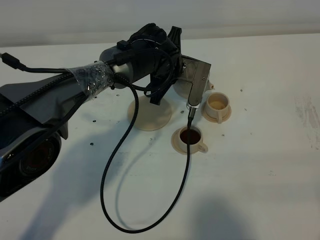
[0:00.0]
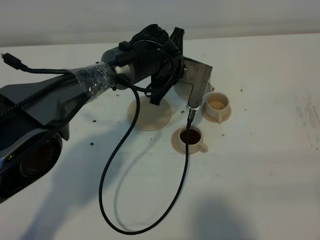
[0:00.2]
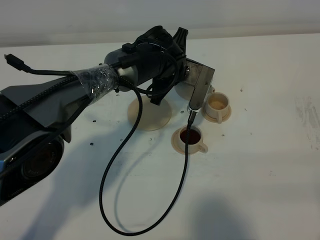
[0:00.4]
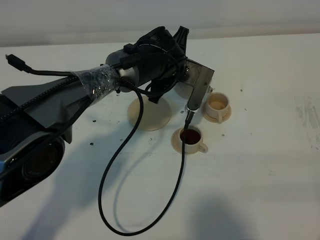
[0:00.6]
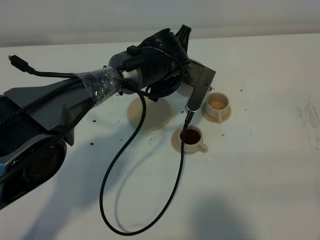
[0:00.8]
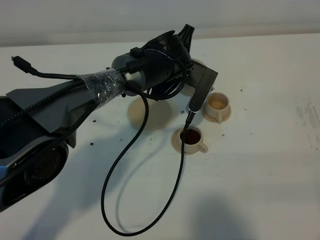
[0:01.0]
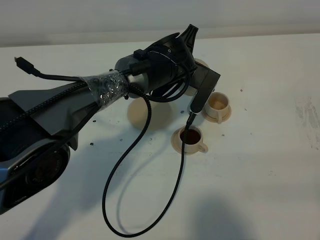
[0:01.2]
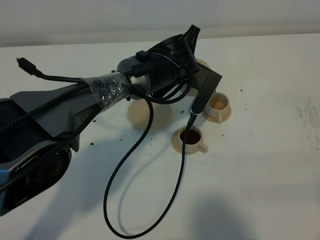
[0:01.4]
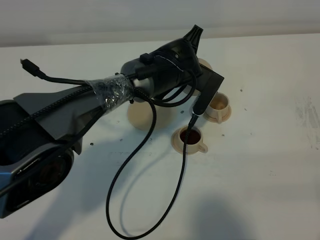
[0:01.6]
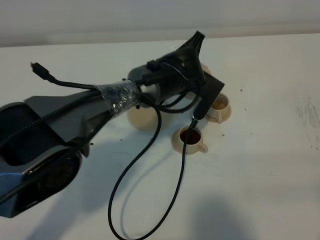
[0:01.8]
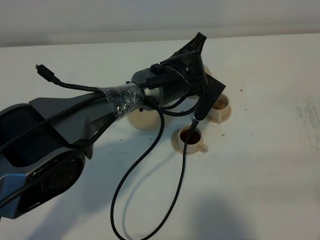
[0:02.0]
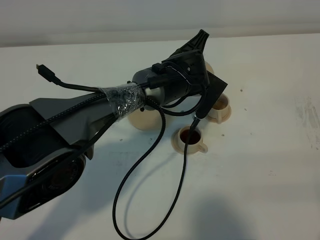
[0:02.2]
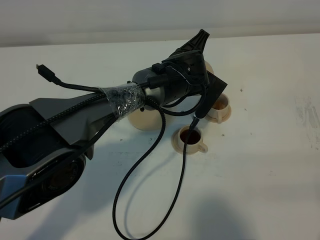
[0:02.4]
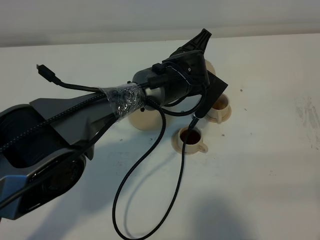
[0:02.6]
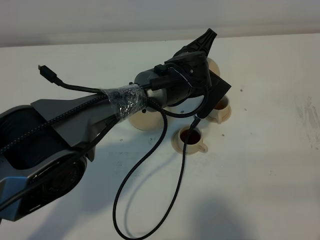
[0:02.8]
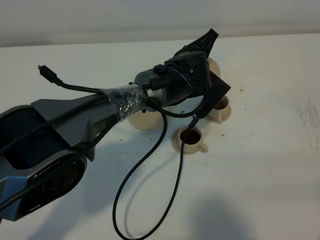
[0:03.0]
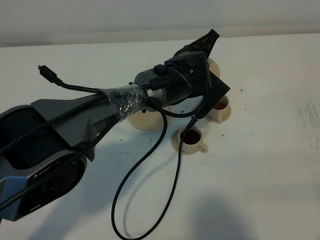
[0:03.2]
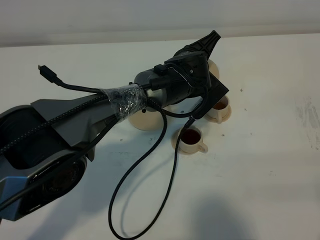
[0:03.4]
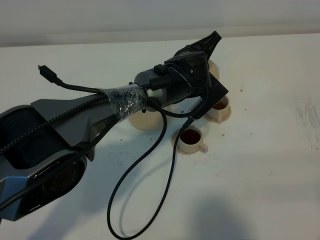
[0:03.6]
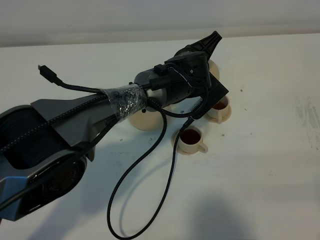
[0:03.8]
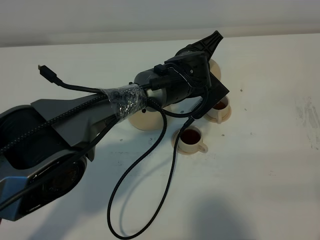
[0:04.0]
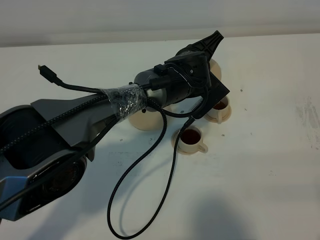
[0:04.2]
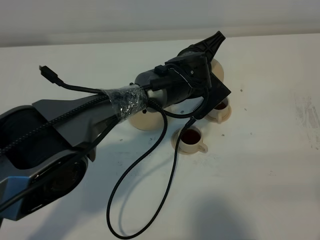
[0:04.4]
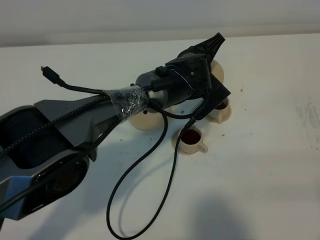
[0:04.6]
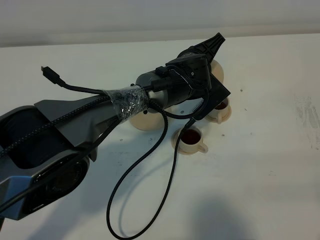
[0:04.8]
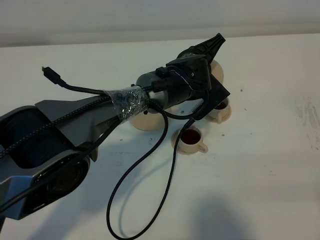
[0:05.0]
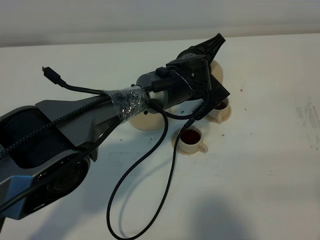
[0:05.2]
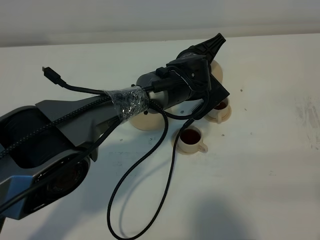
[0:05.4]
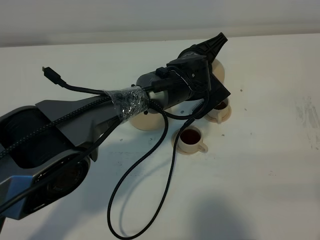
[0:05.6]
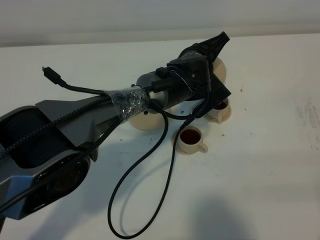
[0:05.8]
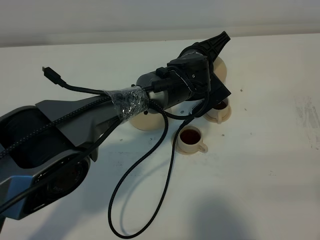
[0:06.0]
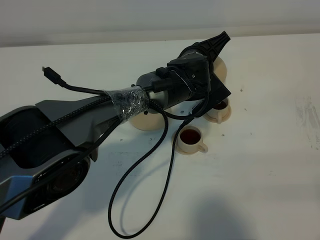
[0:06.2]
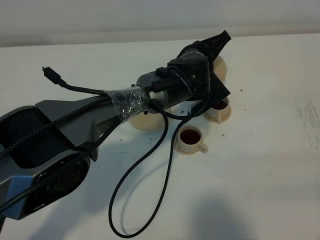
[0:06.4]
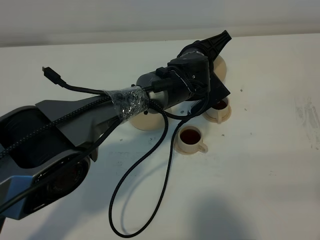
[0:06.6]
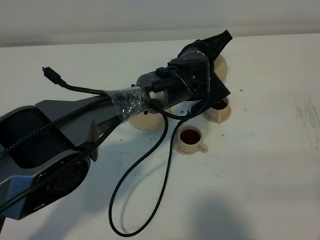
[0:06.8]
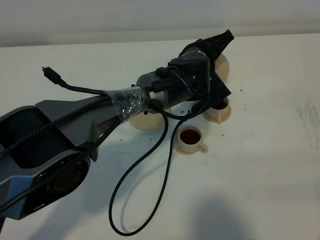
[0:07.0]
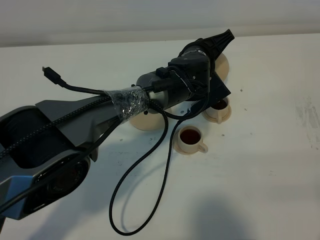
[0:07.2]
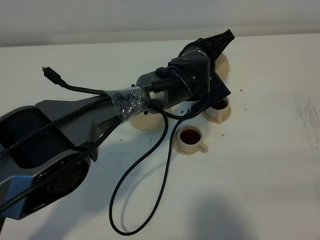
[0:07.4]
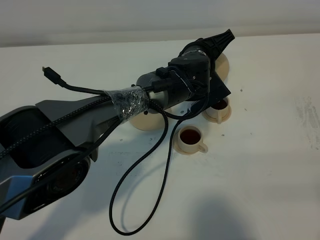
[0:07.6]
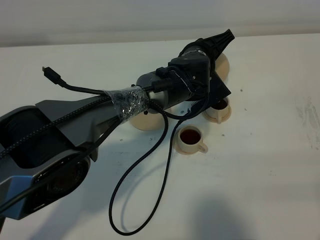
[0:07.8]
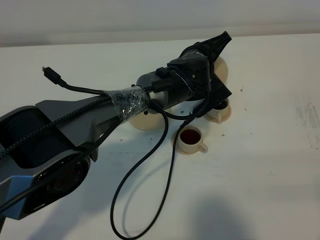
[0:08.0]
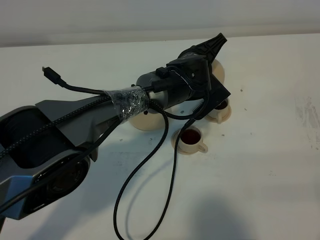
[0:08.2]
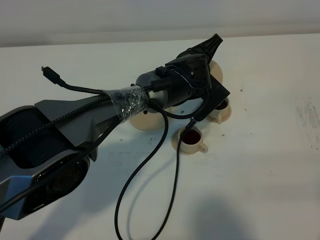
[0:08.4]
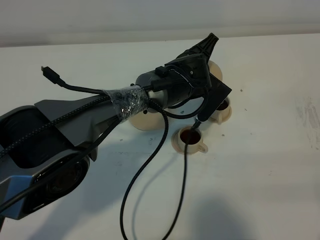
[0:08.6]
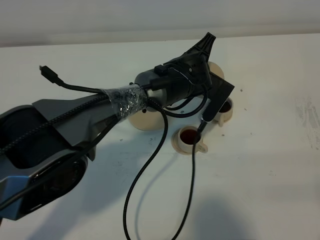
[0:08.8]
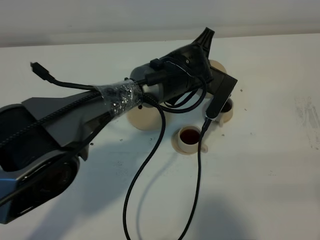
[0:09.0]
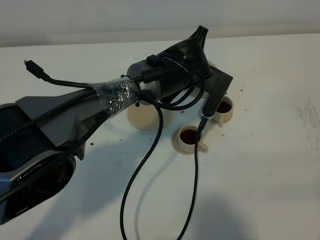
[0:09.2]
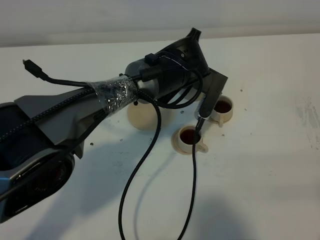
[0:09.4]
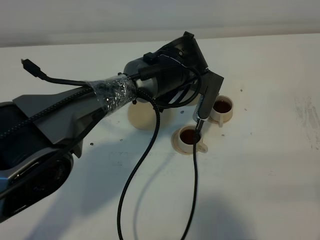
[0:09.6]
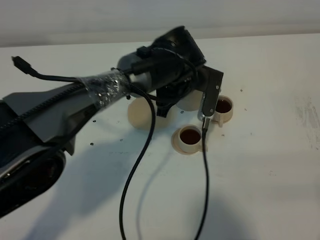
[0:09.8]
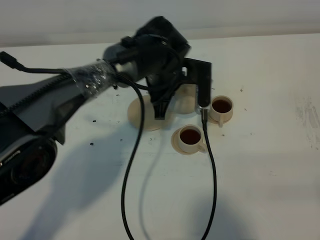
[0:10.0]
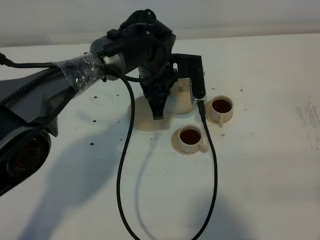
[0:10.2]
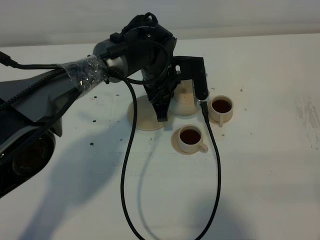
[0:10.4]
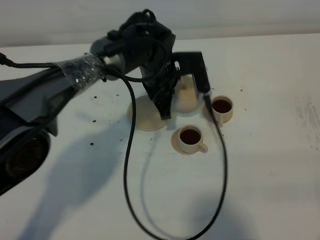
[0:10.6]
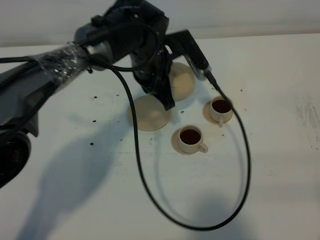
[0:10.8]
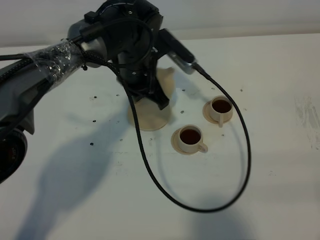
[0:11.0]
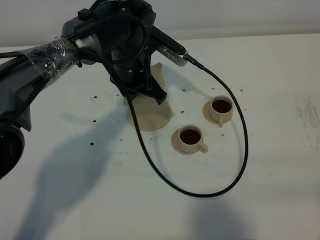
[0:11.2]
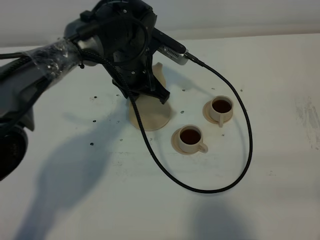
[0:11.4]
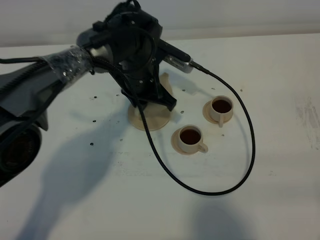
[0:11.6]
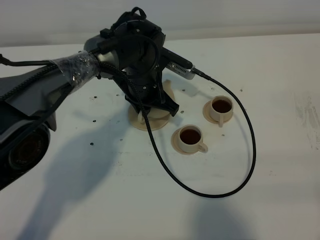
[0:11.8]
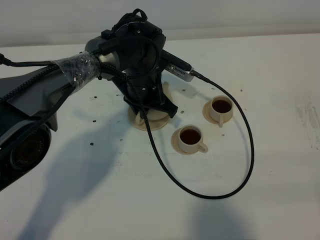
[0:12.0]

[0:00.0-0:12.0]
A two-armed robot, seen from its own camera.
Task of the whole recording: grasp the brown teapot and pour the tea into the two brown teacups one by one, put the brown teapot back in its original place.
Step, 0:00.0 to 0:08.8: Pour tea into the teacup with the left gripper.
0:01.6 to 0:04.4: The grippers stay close to where they were, moving slightly.
0:04.4 to 0:07.6: The grippers move only a little.
0:09.0 to 0:10.4: The left gripper shifts about 5 cm to the left.

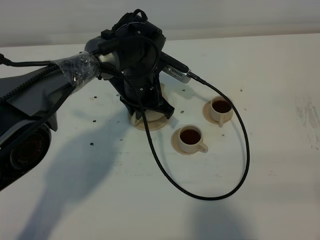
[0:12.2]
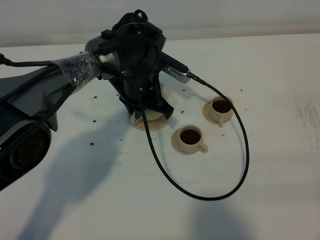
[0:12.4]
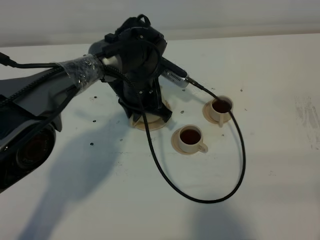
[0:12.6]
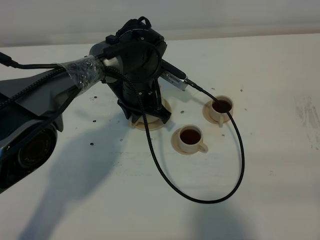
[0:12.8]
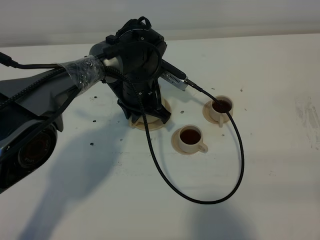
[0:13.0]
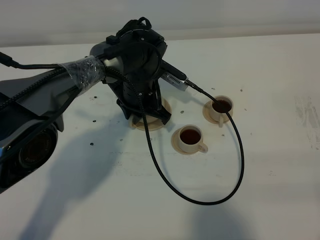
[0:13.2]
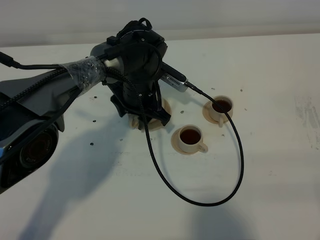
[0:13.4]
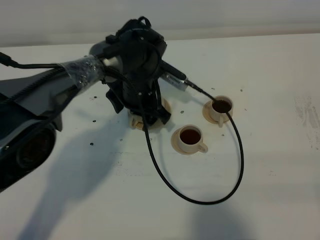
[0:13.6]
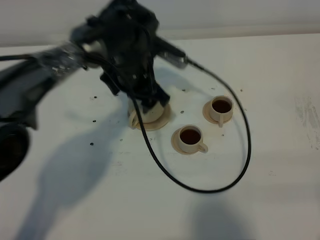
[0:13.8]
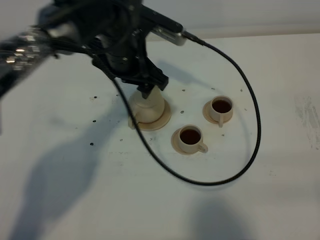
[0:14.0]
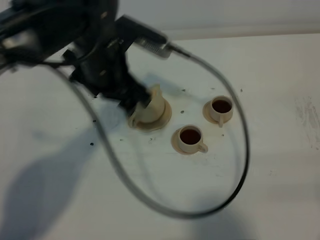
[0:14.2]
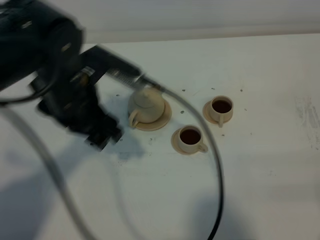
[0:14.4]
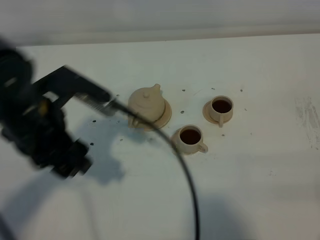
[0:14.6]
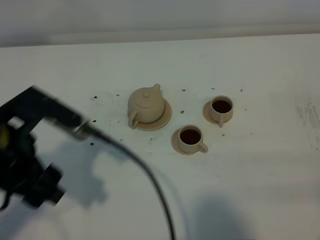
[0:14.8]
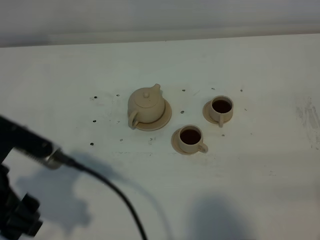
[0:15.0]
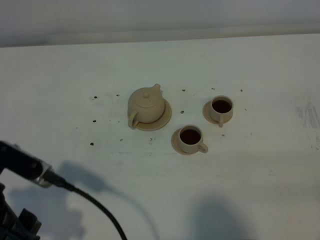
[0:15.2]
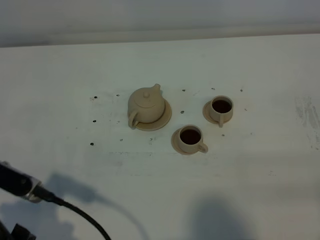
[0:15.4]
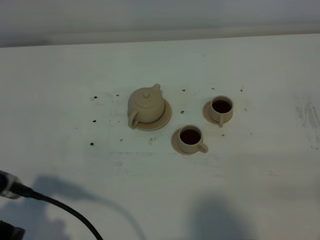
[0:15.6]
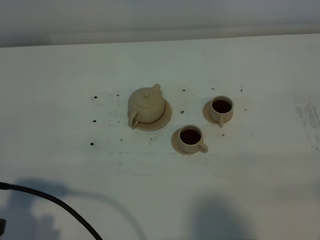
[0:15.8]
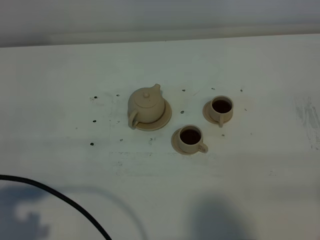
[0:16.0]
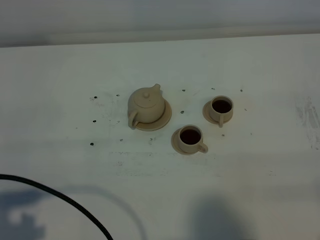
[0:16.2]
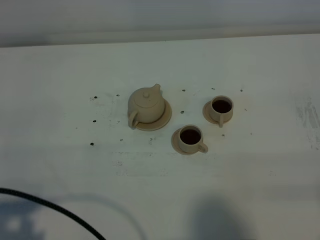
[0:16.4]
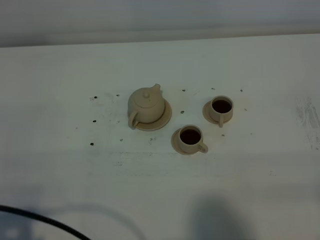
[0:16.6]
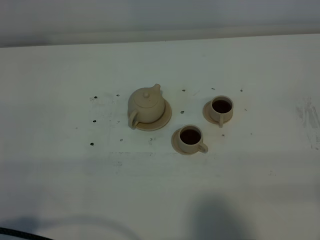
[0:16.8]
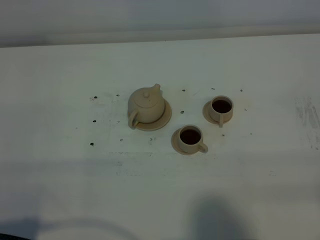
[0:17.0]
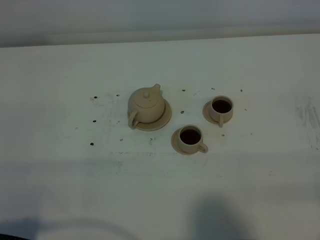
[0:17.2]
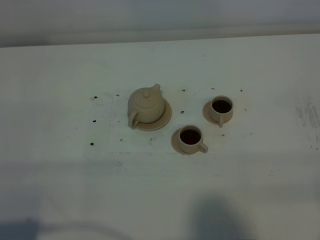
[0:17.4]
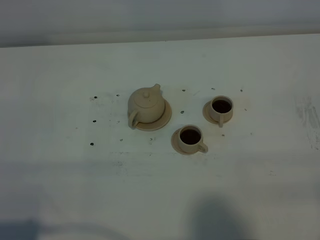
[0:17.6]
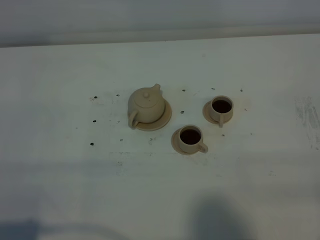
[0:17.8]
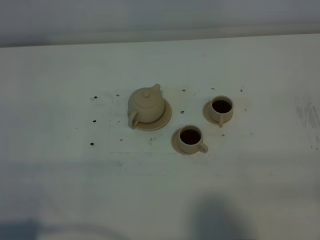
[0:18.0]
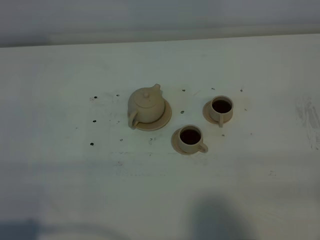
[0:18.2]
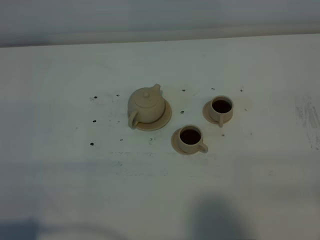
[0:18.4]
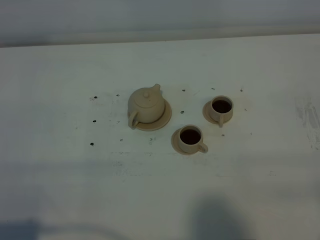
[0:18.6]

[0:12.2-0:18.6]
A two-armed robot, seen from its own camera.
Task of the whole recording: grasp the brown teapot and pour the tea into the two brown teacups one by one, put the brown teapot back in its original place.
0:12.2 to 0:13.8: The left gripper heads upward, covering about 5 cm, and opens its fingers.
0:13.8 to 0:15.4: The left gripper is displaced backward and to the left by some 35 cm.
0:15.4 to 0:17.0: The left gripper goes some 10 cm backward.
0:17.0 to 0:18.6: Both grippers stay put.
